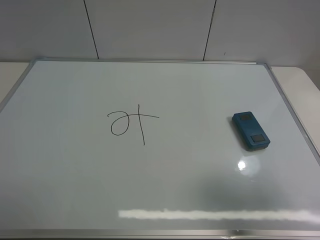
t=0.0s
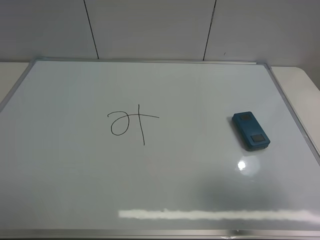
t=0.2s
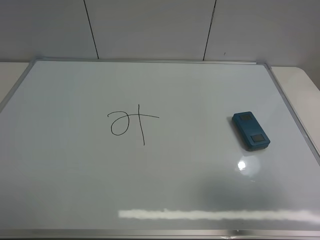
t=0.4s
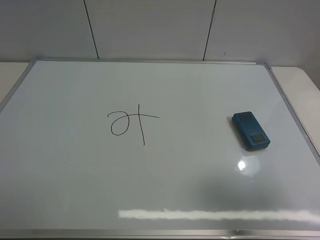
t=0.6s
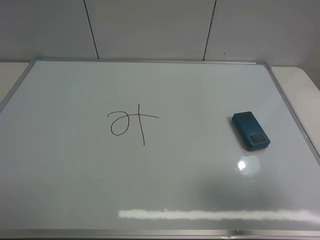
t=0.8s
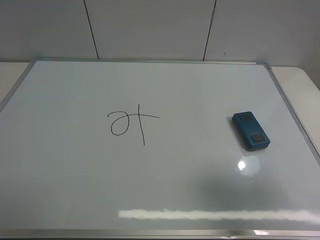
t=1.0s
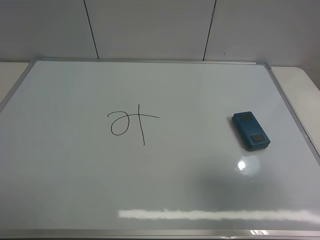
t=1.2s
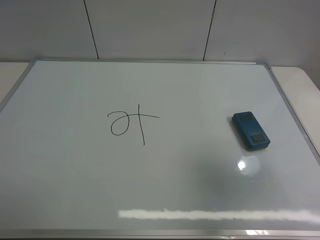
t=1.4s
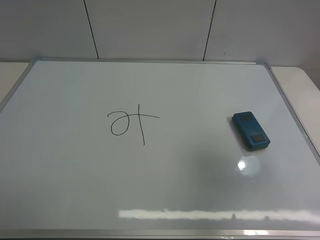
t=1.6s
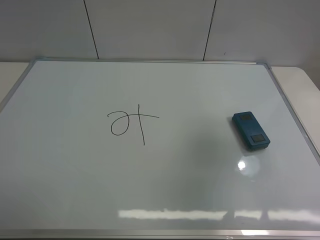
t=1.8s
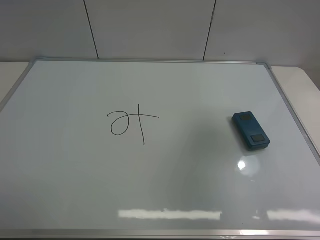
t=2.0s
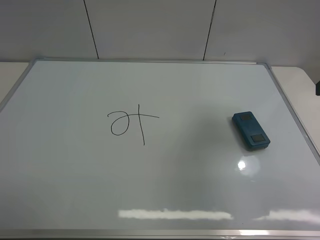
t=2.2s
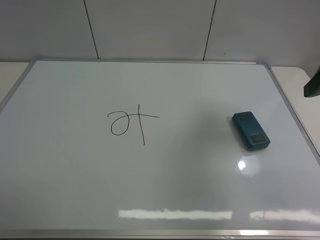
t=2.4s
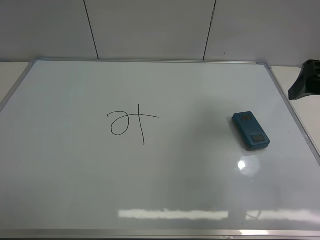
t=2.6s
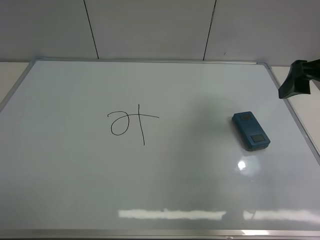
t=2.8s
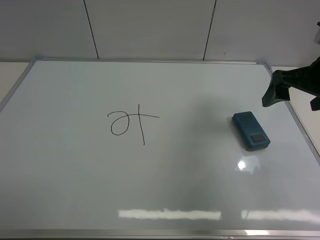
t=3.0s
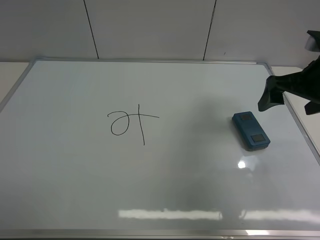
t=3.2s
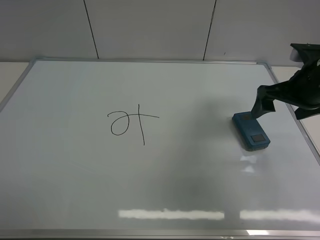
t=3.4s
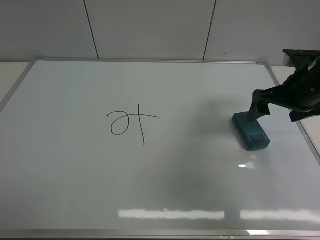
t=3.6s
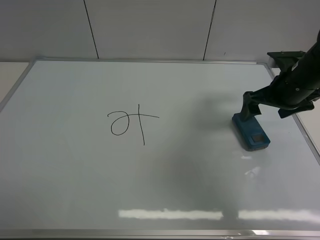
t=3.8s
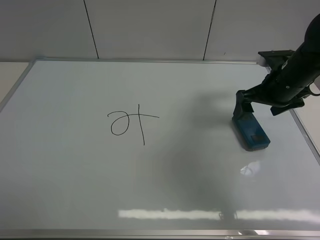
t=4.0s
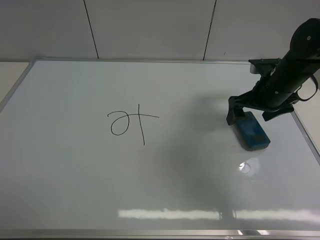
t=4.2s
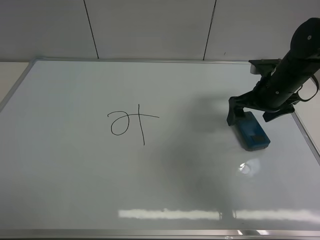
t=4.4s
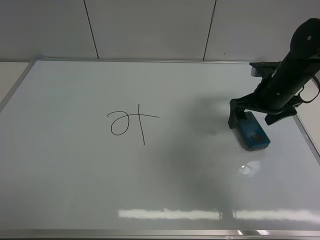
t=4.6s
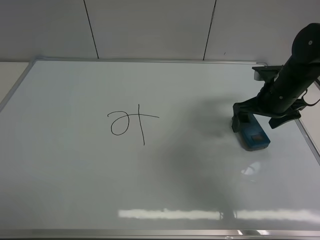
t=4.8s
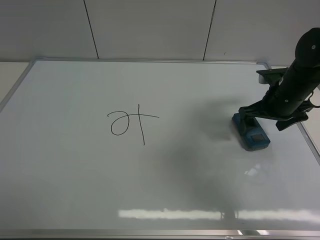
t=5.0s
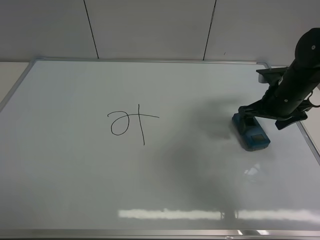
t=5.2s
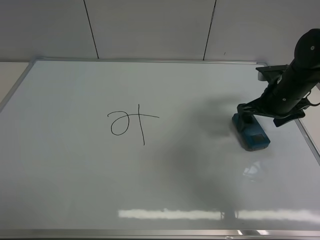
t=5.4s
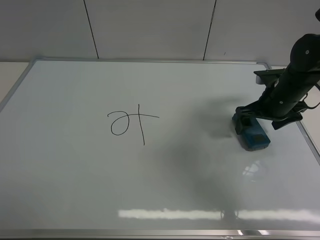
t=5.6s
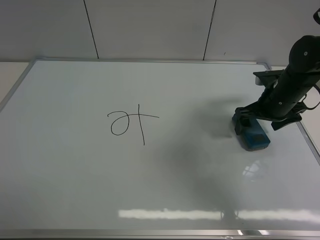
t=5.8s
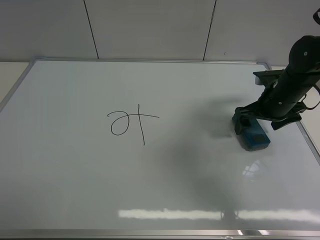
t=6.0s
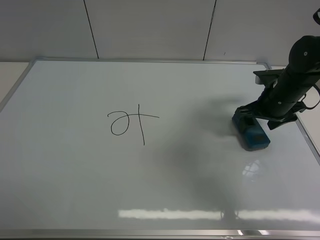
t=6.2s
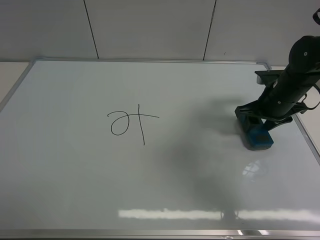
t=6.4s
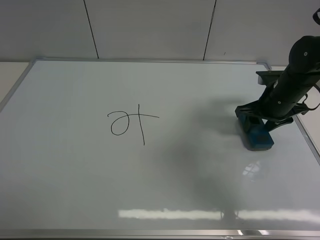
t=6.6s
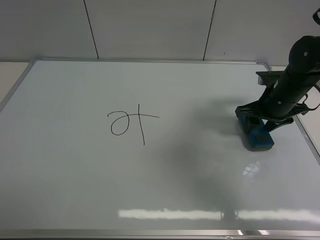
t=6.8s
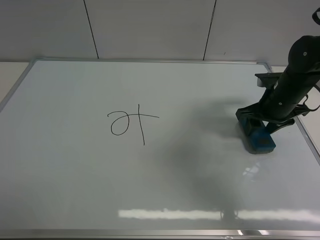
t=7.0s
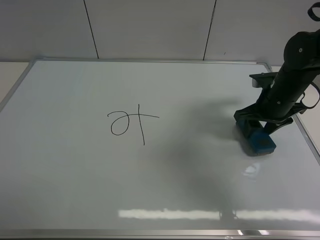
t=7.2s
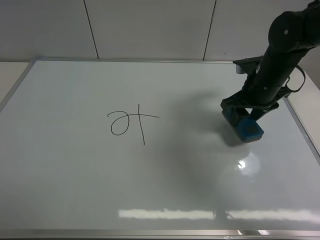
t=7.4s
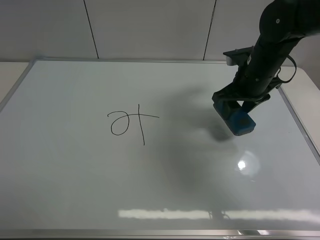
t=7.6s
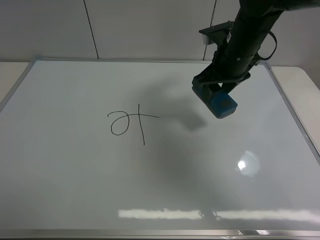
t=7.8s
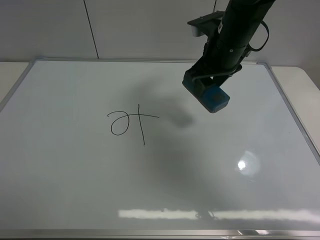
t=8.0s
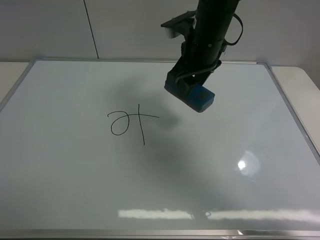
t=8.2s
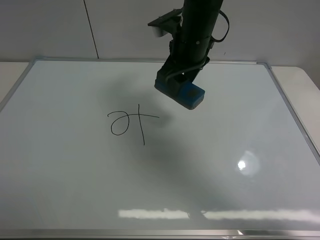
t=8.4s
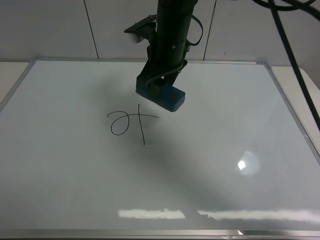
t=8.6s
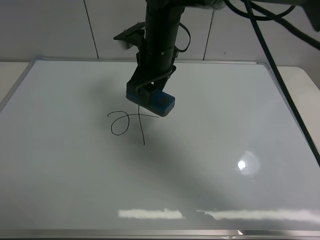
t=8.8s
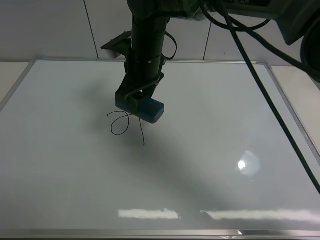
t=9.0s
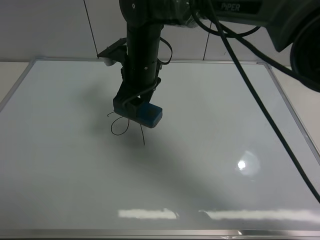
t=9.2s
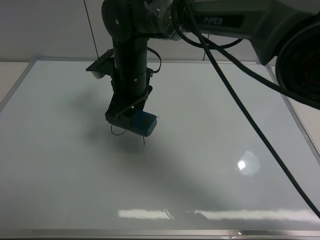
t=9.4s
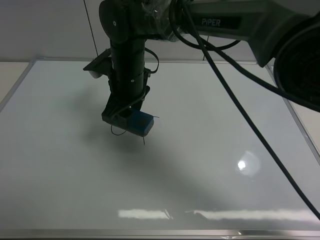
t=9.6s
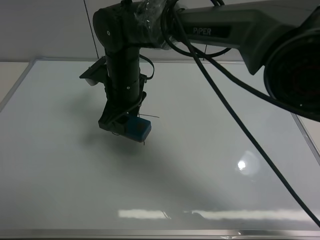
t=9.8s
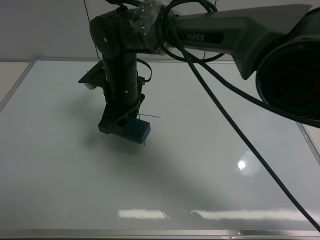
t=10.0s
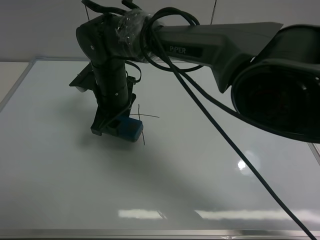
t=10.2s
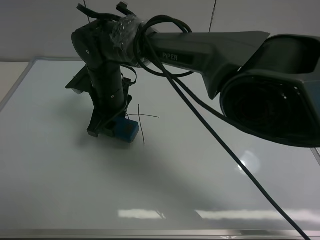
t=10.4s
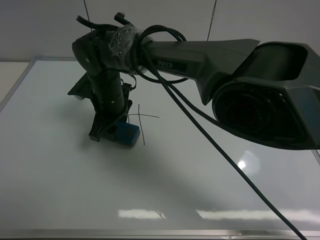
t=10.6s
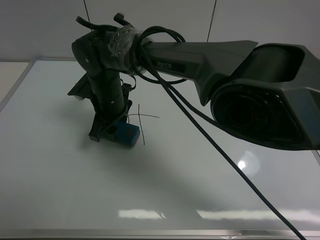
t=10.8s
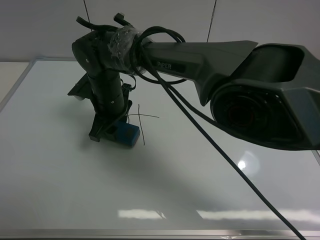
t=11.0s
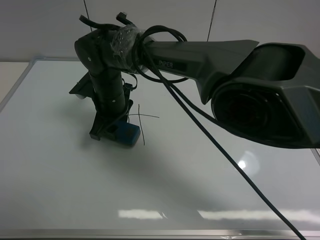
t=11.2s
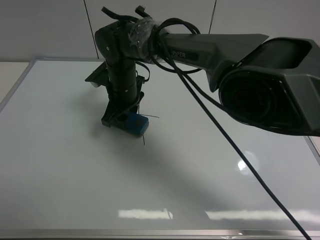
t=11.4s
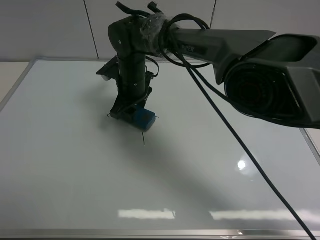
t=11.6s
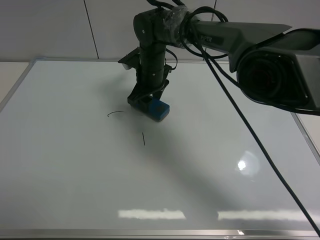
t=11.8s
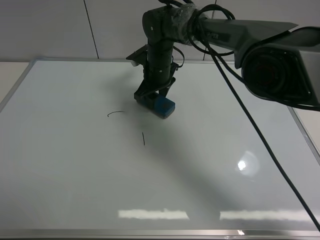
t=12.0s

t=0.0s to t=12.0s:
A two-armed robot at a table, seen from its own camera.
Task of the whole recording: use the right gripper to pick up the board eraser, wipe the notes on the whiteboard clean, and then put them back in place.
Step, t=0.0s to t=7.4s: Pick up the board eraser with right gripper.
t=0.0s to t=1.6s: The right gripper is displaced forward and upward by about 10 cm.
t=1.6s to t=3.0s: The right gripper moves forward and downward, approximately 20 cm.
t=3.0s to t=4.4s: The right gripper is displaced downward and forward by about 10 cm.
t=4.4s to t=6.0s: The grippers stay close to where they were, moving slightly.
t=6.0s to t=7.6s: The right gripper heads to the left and upward, covering some 10 cm, and closes up.
t=7.6s to t=9.0s: The right gripper moves to the left, some 20 cm.
t=9.0s to t=10.4s: The right gripper goes roughly 10 cm to the left and downward.
t=10.4s to t=12.0s: The right gripper heads forward and to the right, covering approximately 15 cm.

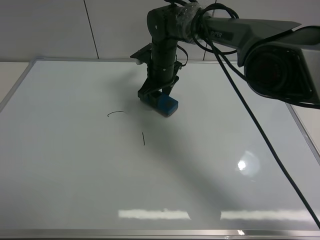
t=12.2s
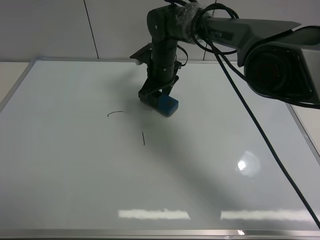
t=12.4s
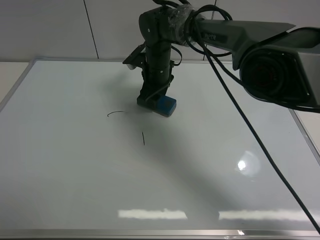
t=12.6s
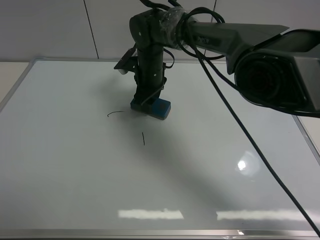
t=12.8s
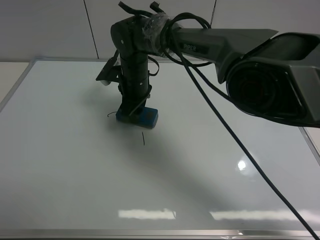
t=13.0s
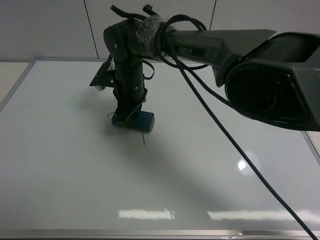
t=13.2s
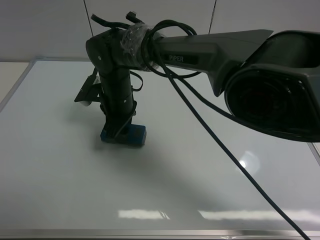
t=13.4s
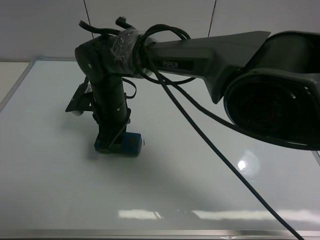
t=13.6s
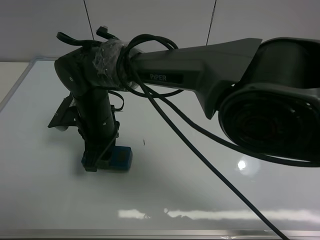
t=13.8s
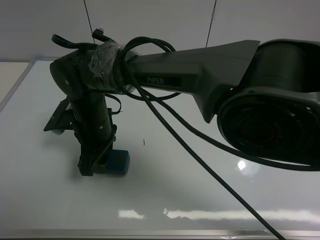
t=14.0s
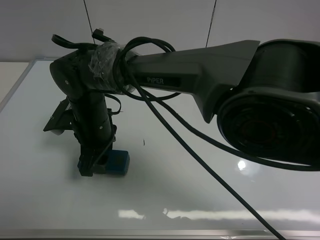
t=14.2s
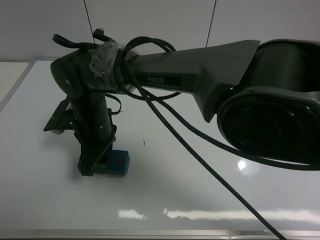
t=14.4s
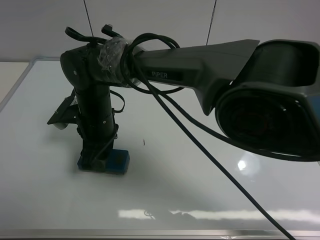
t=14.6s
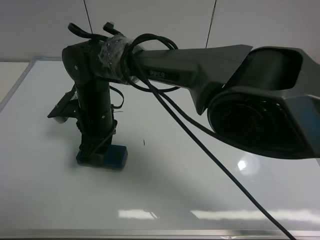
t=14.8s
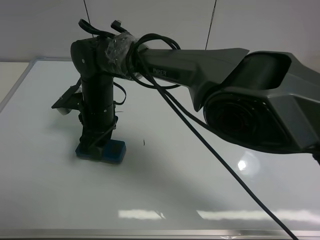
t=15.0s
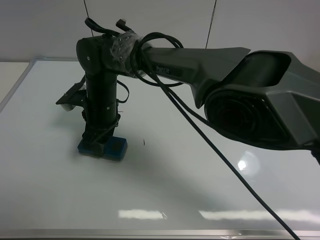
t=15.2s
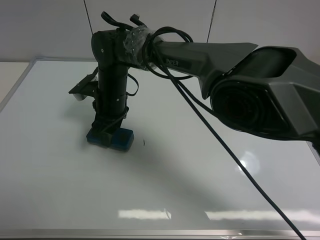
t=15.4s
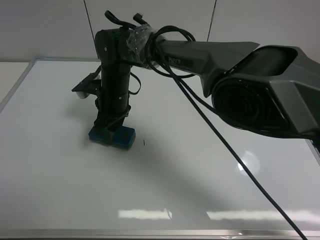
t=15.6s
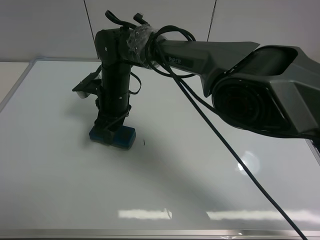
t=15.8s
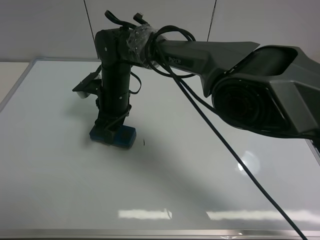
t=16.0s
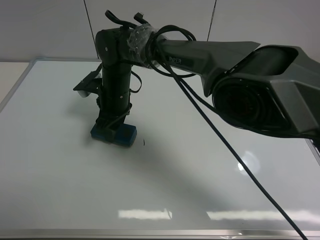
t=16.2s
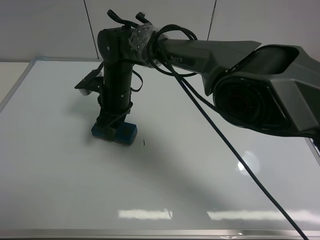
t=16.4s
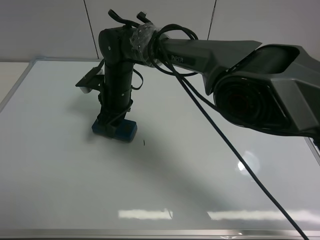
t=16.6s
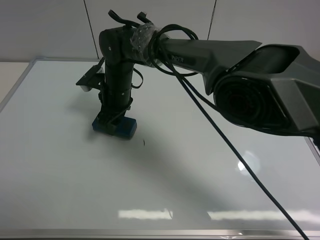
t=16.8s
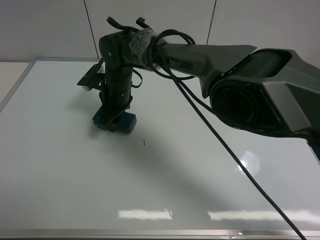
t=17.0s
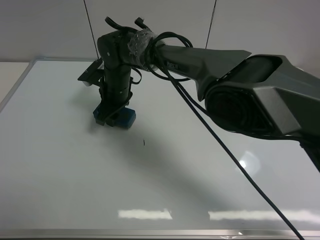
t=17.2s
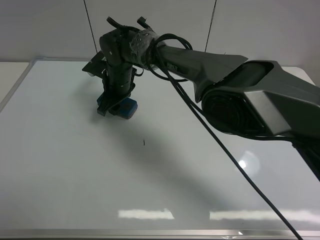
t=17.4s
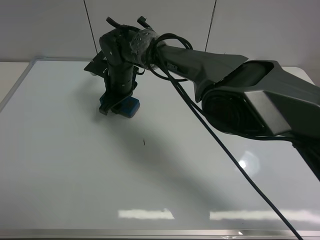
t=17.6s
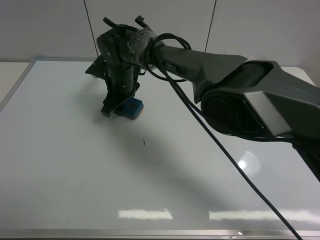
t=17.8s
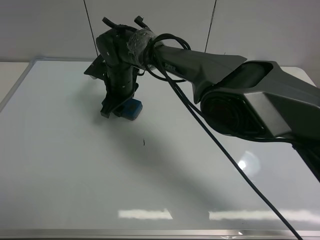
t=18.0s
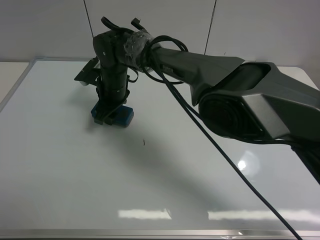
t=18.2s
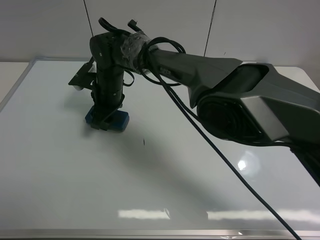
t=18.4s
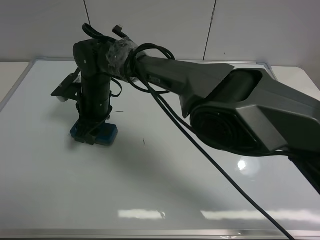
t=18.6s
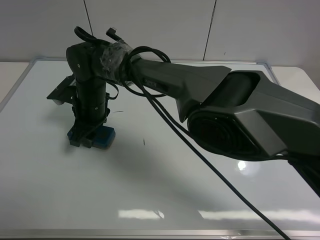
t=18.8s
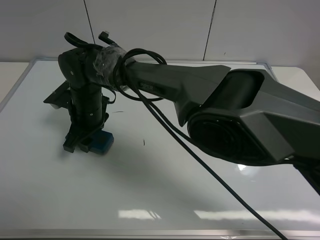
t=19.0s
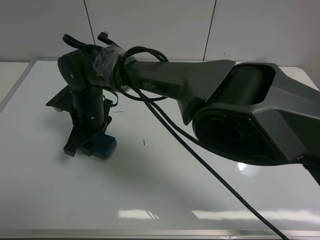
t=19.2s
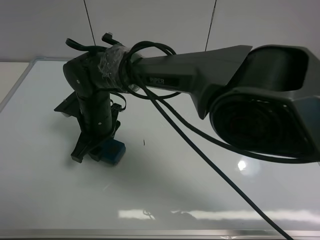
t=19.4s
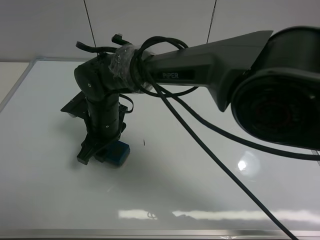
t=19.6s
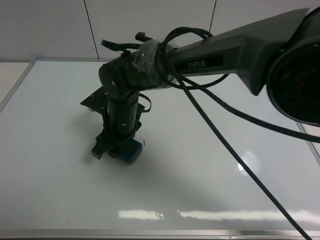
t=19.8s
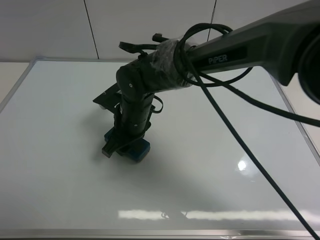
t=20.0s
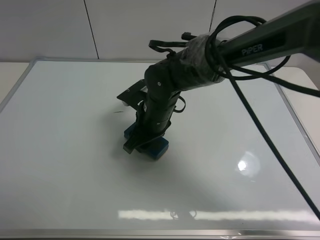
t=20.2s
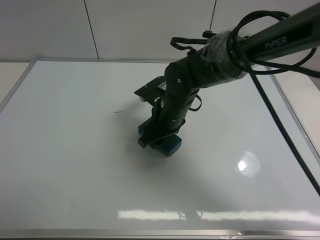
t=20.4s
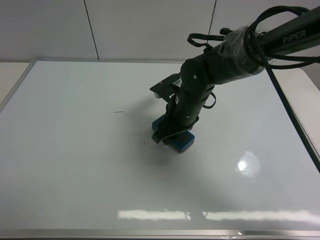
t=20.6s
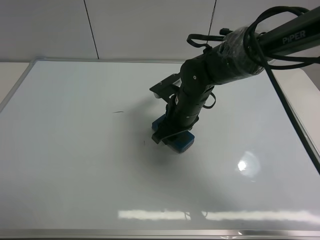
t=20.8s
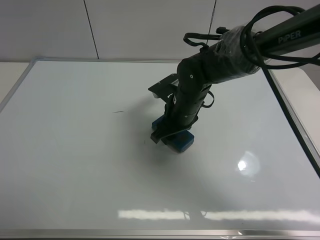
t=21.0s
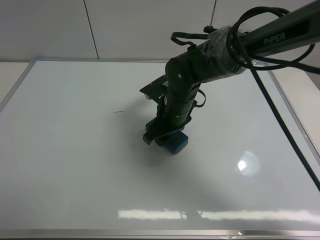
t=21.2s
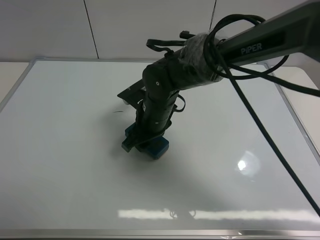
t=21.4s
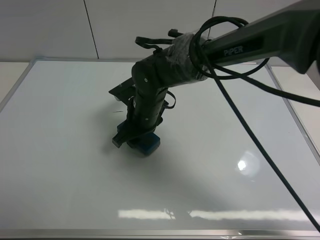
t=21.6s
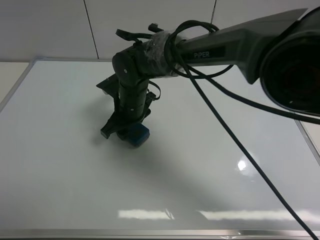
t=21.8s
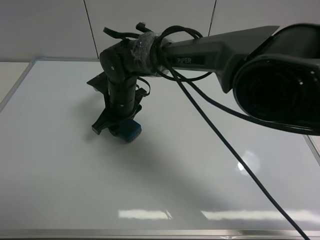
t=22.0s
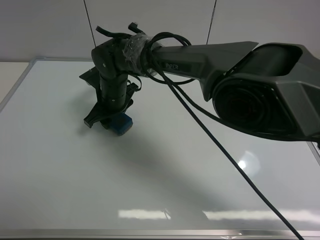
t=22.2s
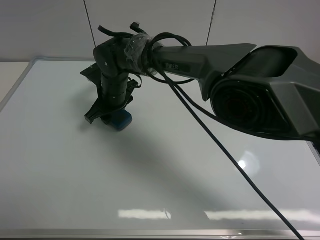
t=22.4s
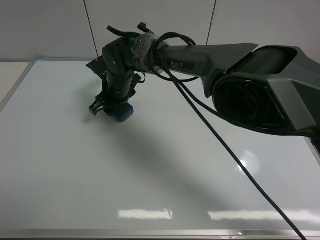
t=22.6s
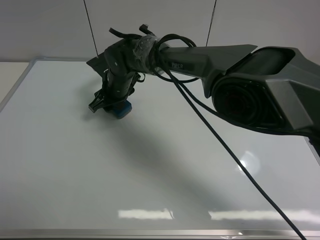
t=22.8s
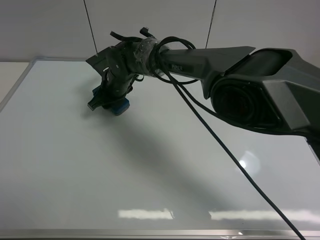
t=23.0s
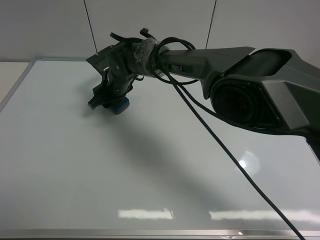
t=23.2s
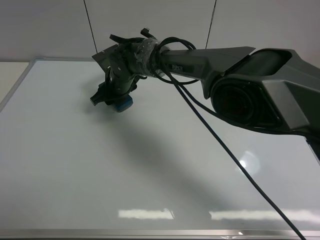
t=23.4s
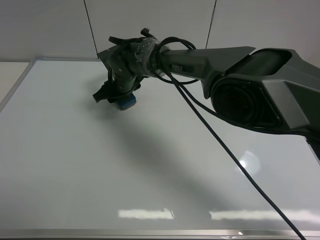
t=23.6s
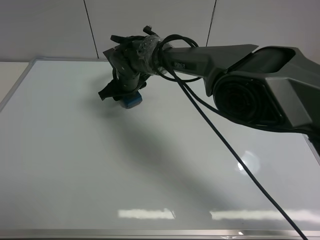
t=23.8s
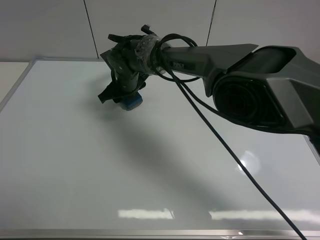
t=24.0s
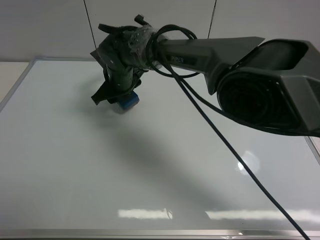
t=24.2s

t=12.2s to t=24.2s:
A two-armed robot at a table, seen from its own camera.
Task of the whole recording: use the right gripper to pick up the board eraser, wipe the notes on the whiteboard clean, and then put them back in place.
Step, t=12.2s to t=24.0s: Wipe off the writing on the board with right gripper.
t=12.2s to t=13.8s: The right gripper heads backward and to the left, covering roughly 20 cm.
t=13.8s to t=15.2s: The right gripper shifts approximately 5 cm forward.
t=18.2s to t=19.8s: The right gripper is displaced backward by about 10 cm.
t=19.8s to t=21.2s: The right gripper shifts some 10 cm to the right.
t=21.2s to t=22.6s: The right gripper shifts approximately 15 cm to the left and forward.
t=22.6s to t=24.2s: The grippers make only small movements.
